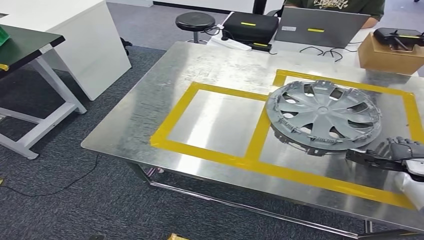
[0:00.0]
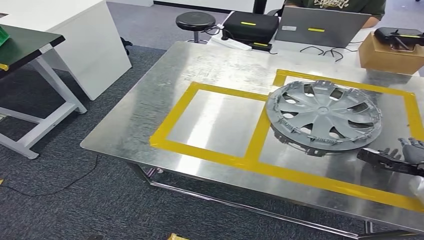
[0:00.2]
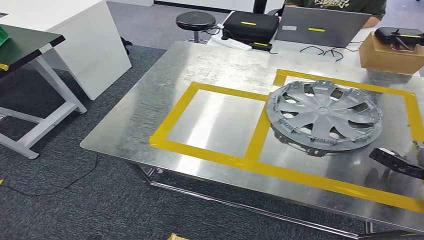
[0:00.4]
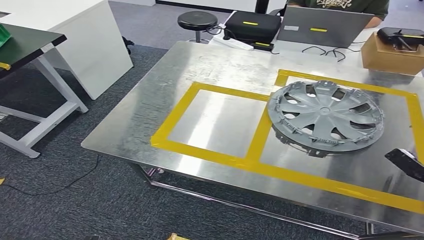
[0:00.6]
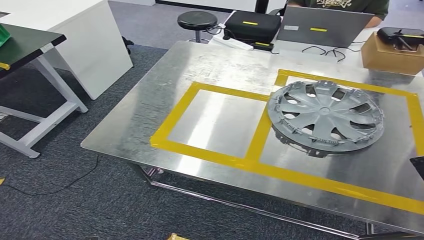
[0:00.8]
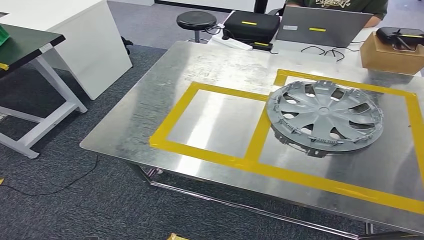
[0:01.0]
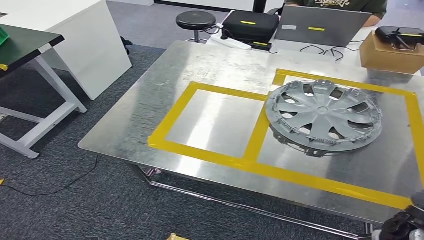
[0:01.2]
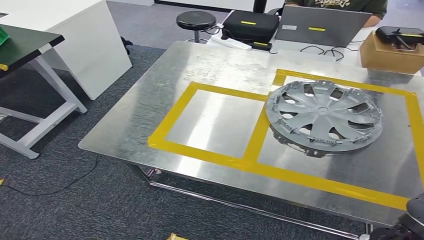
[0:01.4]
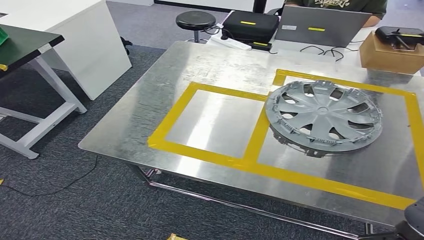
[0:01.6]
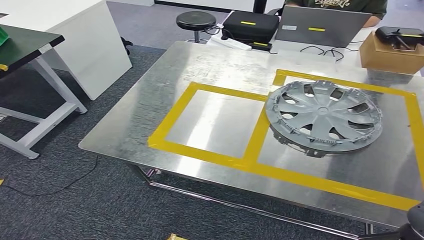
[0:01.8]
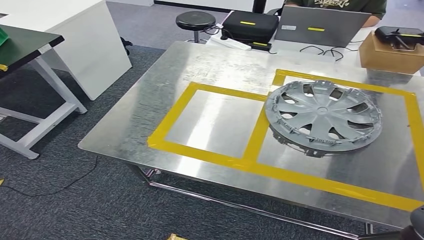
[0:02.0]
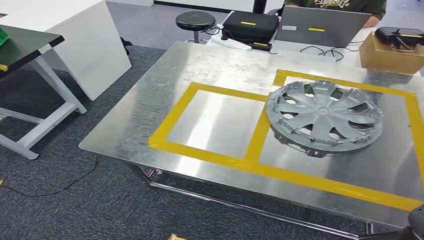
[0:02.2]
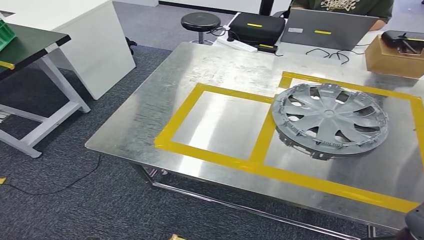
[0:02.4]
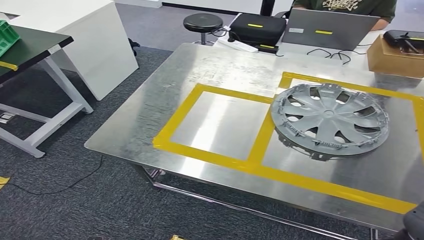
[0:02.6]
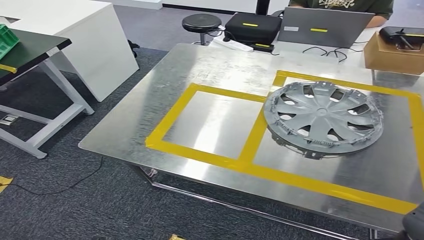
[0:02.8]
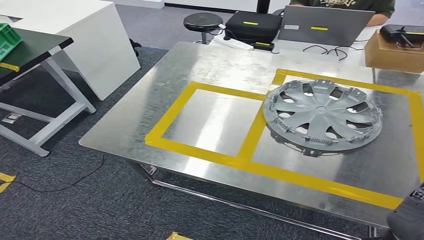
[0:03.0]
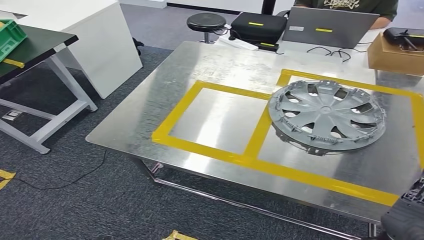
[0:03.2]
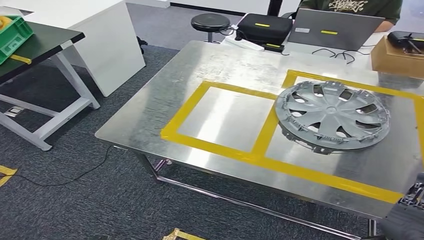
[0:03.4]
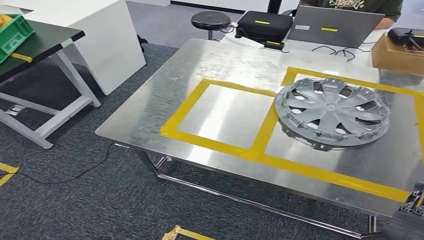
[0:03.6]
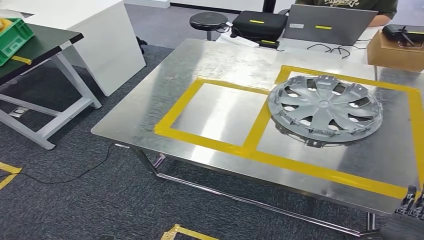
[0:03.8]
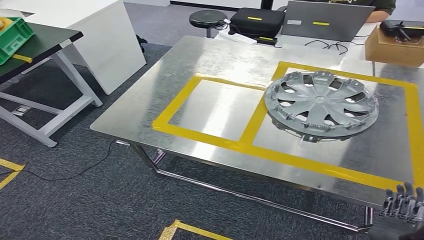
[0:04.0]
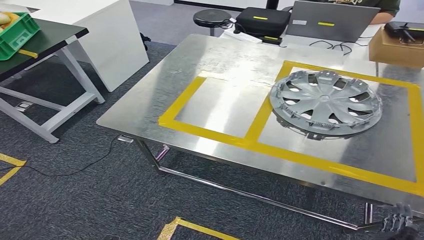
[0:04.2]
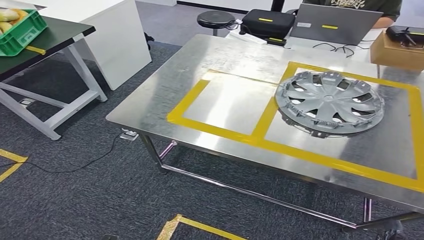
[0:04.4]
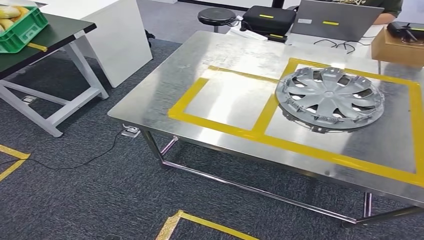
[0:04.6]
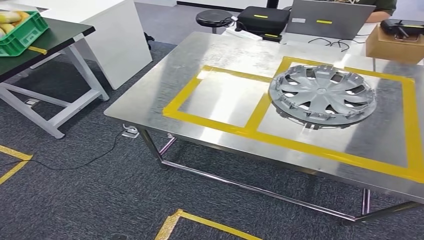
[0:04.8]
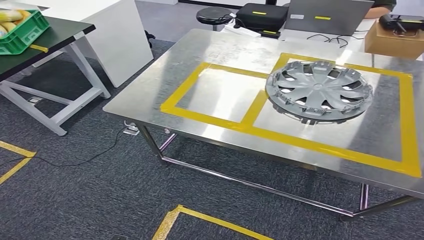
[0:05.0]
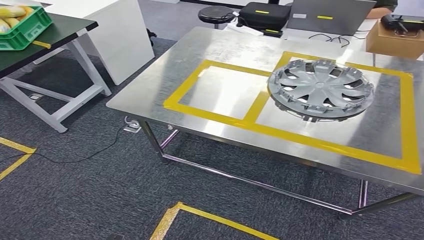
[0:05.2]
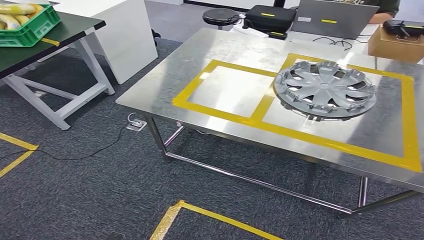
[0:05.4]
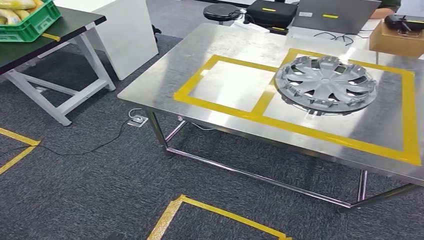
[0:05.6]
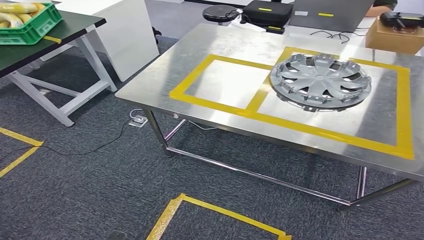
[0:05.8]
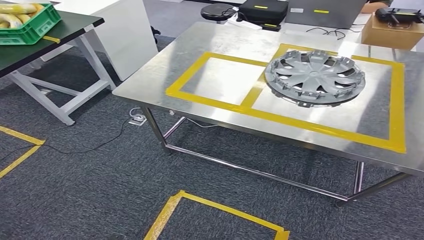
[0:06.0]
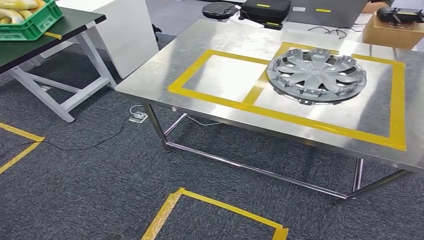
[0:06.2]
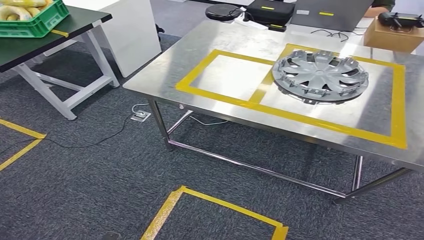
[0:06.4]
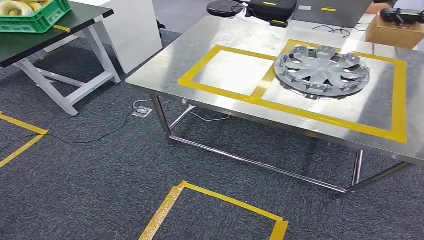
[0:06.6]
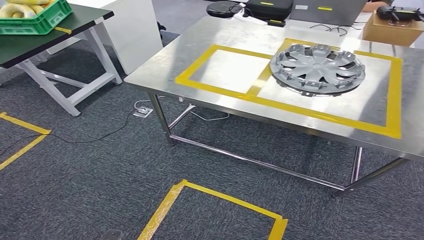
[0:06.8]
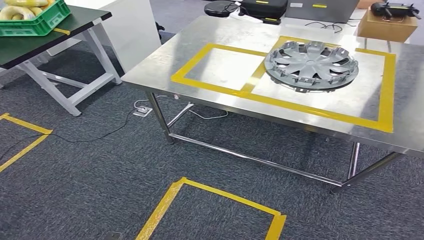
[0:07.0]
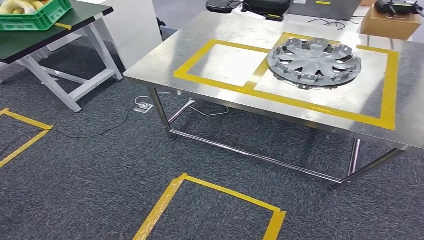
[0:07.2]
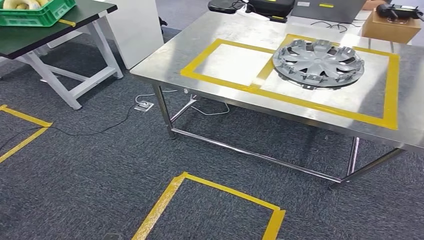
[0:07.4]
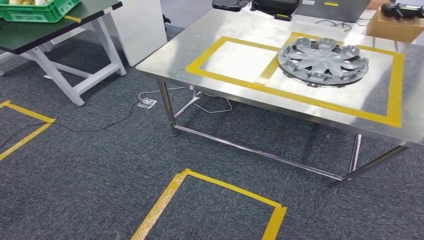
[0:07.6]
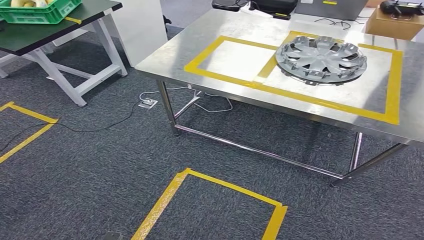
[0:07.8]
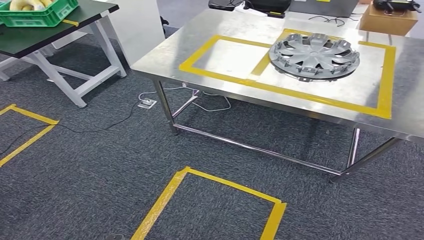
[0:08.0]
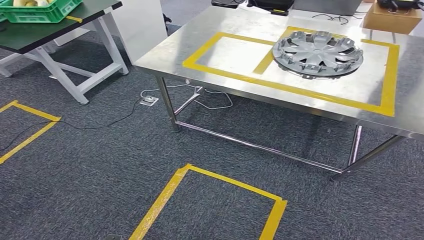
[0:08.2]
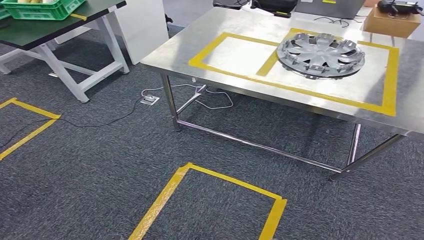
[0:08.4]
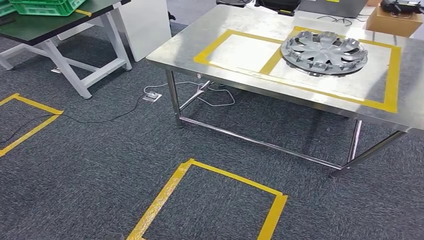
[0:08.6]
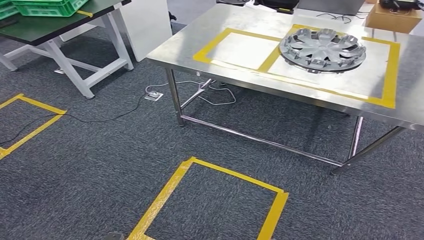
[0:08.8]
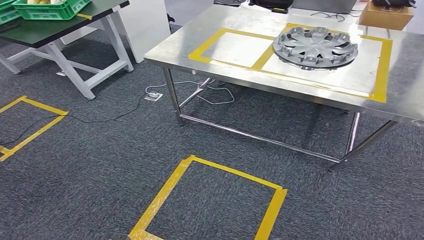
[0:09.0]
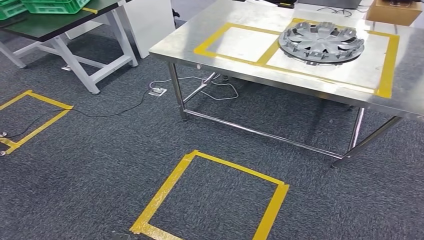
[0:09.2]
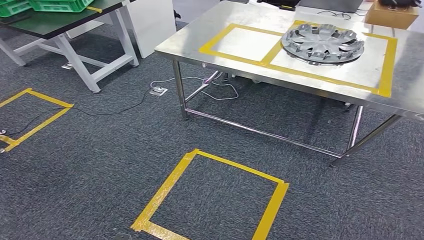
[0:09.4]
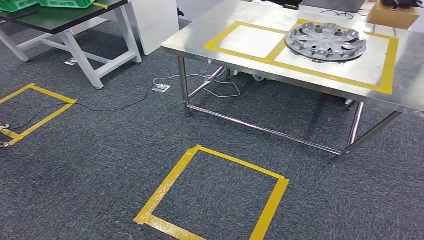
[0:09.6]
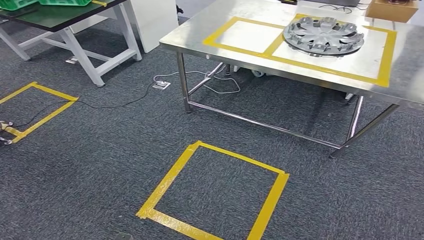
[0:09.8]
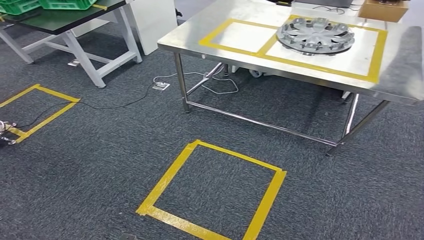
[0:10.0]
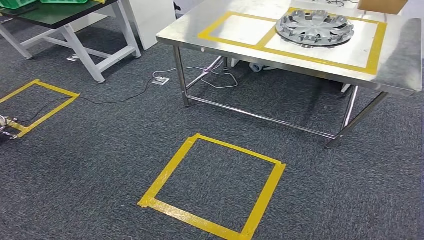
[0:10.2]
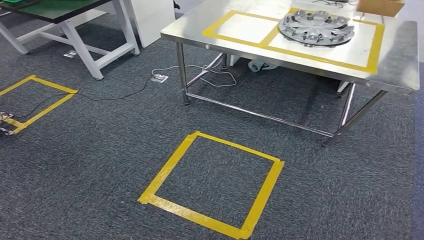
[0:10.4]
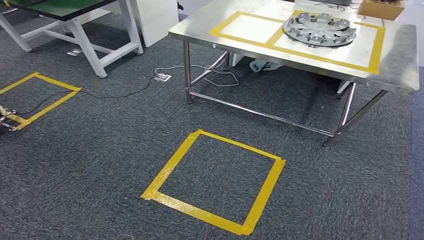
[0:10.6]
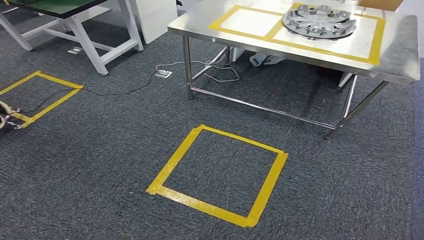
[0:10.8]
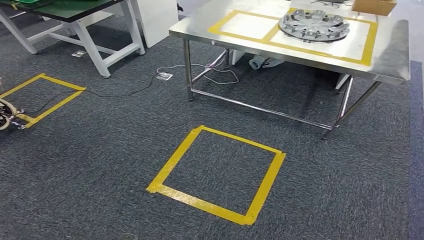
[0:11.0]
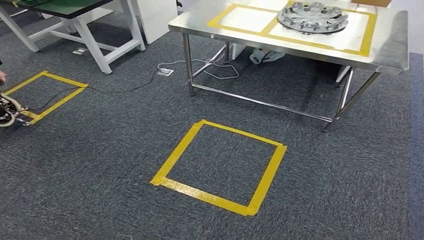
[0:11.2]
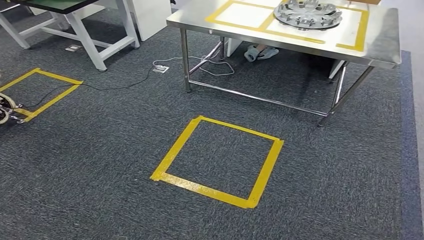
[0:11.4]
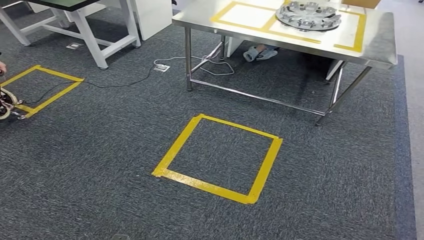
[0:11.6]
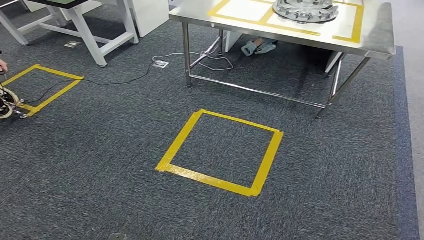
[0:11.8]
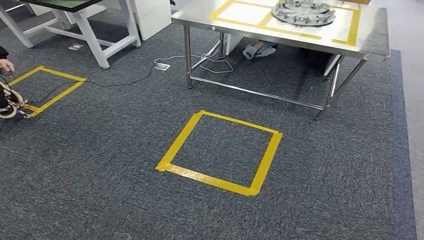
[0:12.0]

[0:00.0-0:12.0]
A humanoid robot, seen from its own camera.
0:00.0 to 0:01.6: The right hand moves backward and to the left, approximately 25 cm.

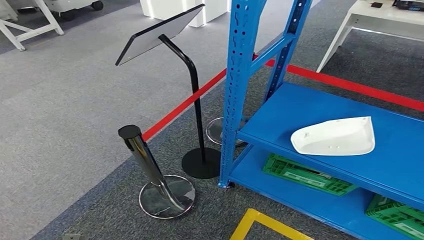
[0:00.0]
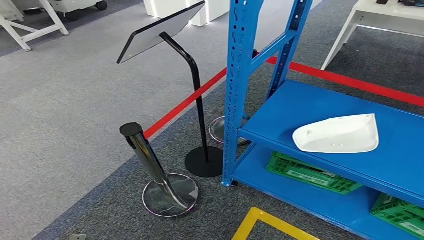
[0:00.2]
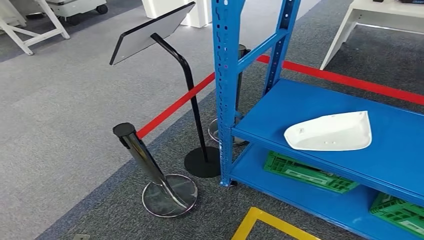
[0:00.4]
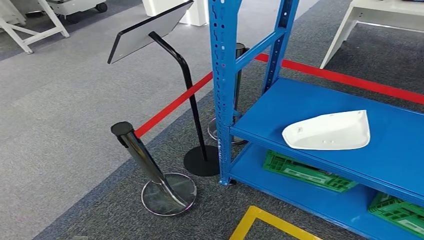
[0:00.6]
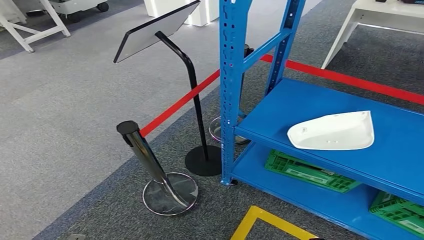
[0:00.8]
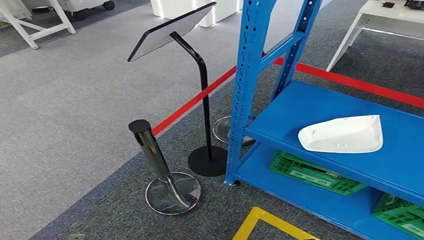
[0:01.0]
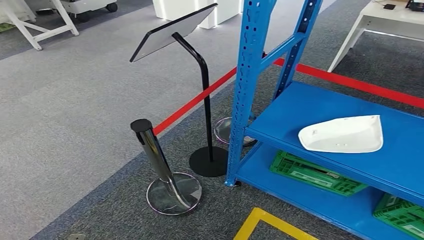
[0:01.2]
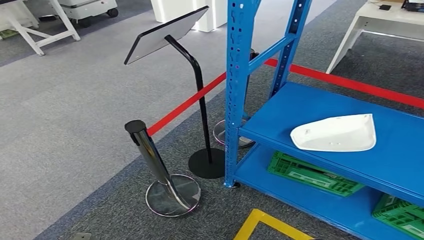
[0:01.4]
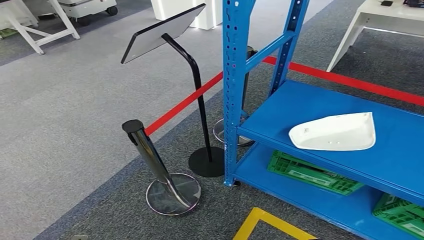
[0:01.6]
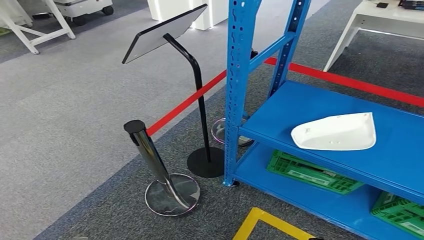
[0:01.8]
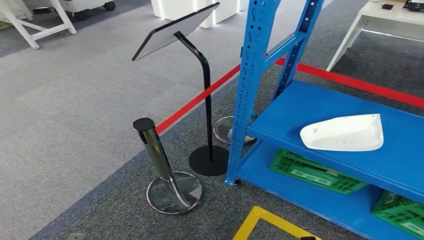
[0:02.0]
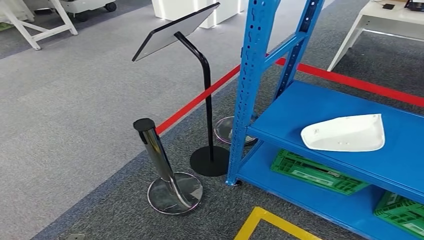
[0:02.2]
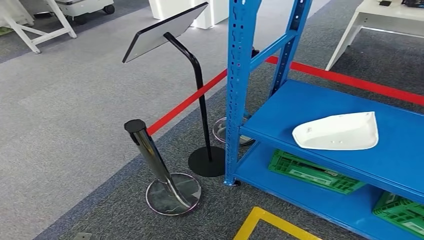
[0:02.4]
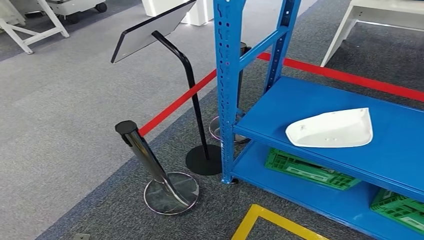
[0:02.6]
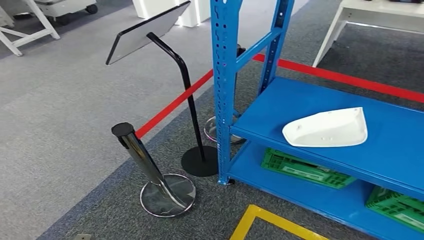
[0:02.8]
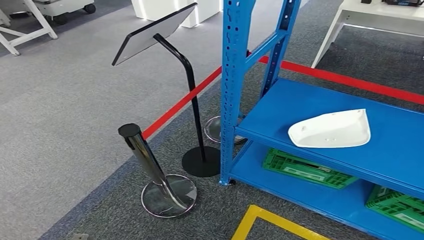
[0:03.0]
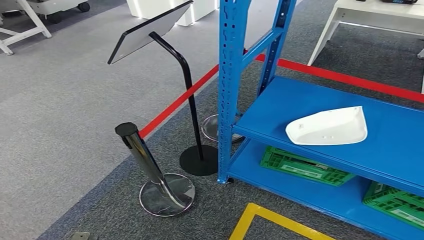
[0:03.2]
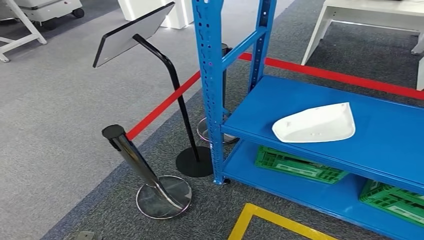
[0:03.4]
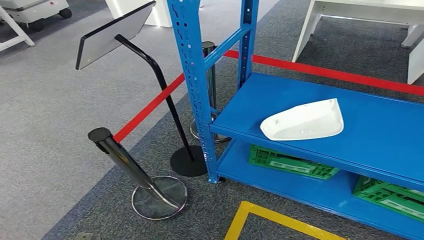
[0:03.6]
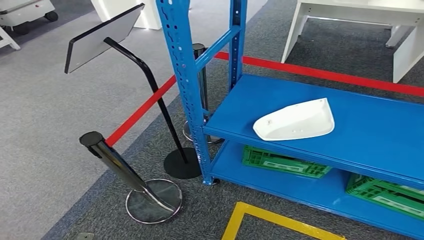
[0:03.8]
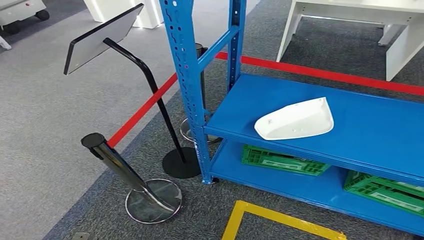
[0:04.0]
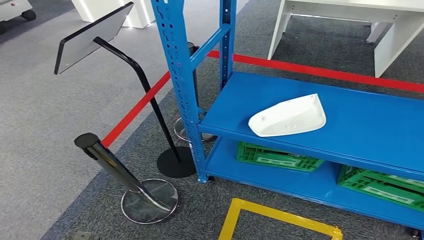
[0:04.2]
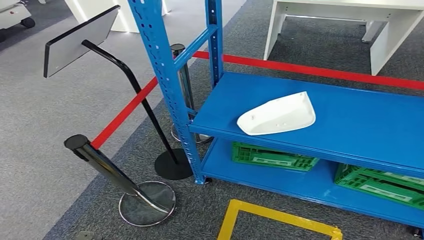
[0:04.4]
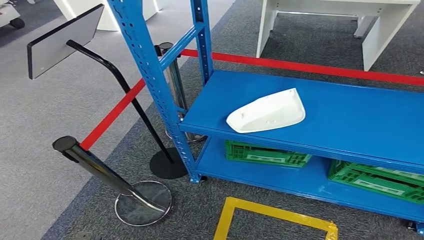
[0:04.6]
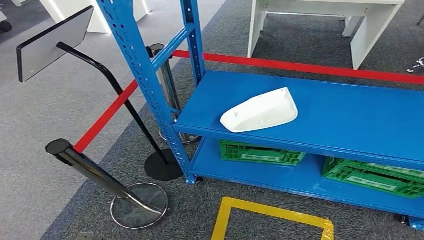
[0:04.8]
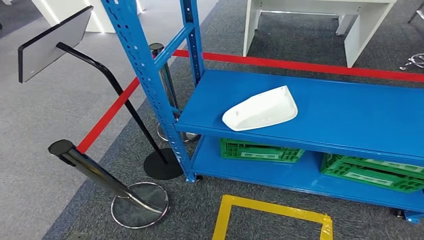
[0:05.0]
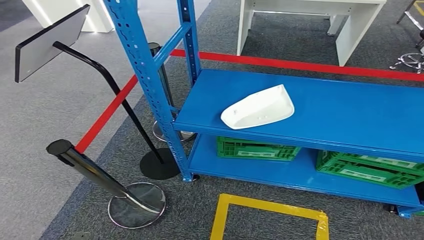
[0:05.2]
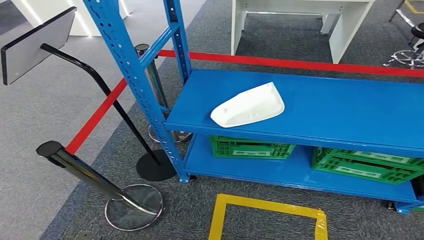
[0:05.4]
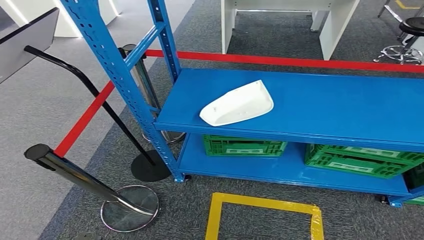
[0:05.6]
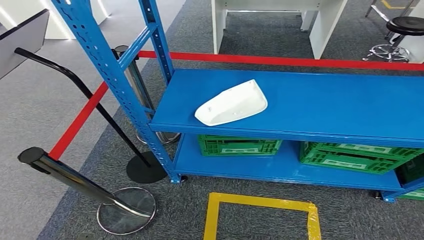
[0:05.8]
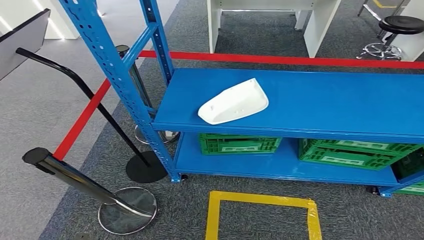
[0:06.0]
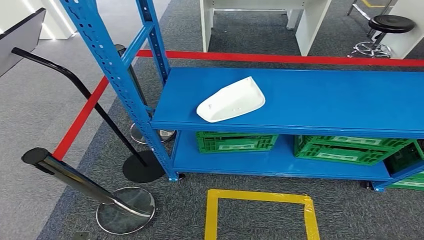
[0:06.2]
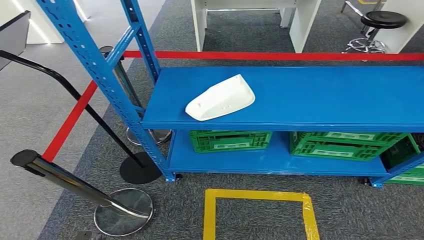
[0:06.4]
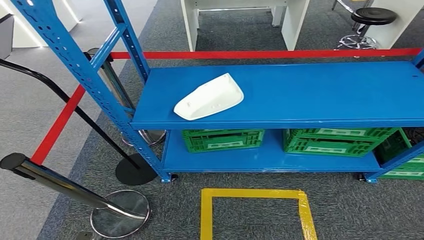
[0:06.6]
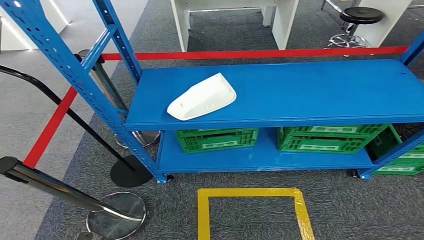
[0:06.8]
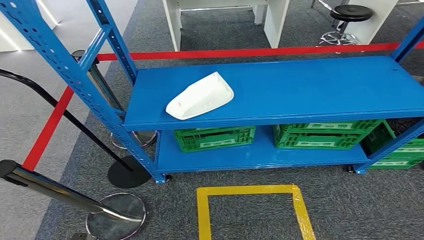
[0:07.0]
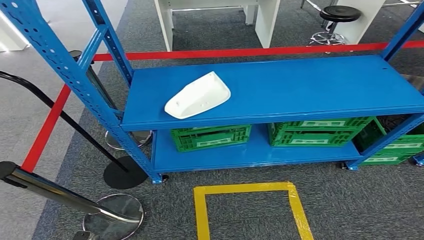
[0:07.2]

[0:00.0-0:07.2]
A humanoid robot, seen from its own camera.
0:00.0 to 0:01.4: Both hands stay put.
